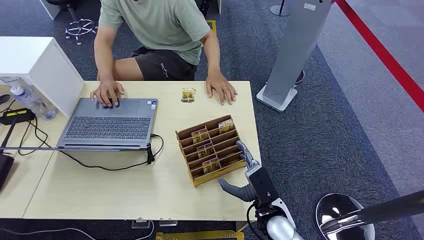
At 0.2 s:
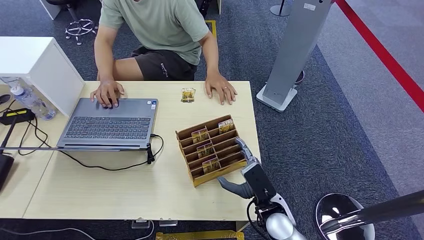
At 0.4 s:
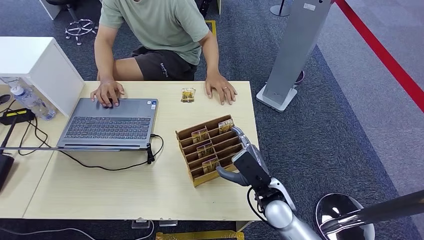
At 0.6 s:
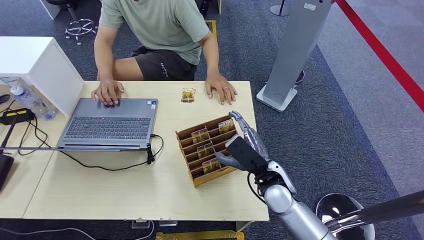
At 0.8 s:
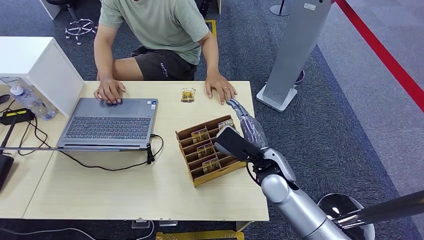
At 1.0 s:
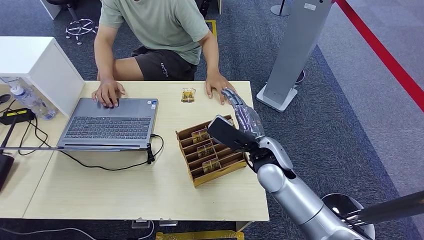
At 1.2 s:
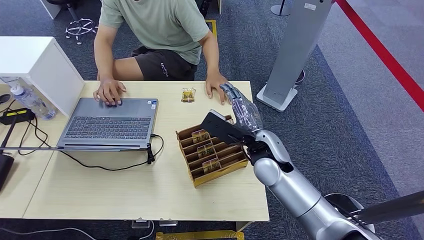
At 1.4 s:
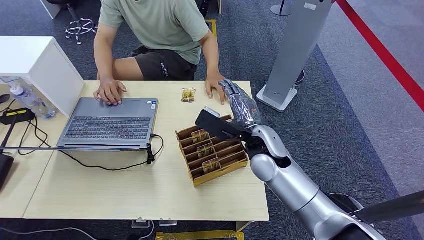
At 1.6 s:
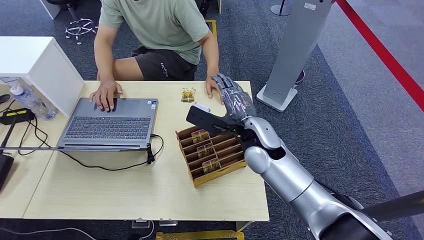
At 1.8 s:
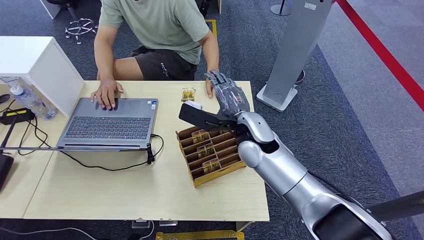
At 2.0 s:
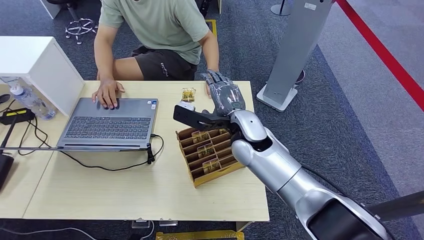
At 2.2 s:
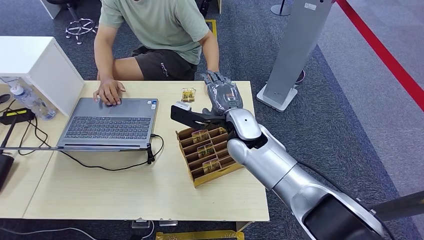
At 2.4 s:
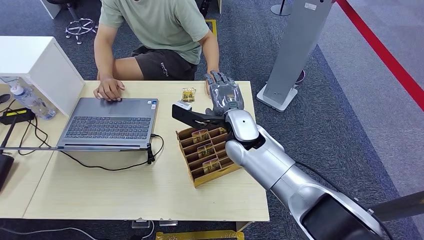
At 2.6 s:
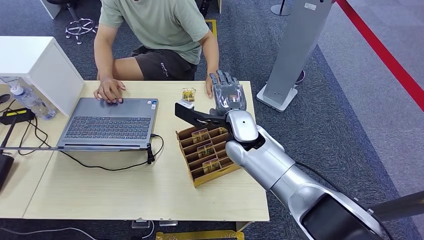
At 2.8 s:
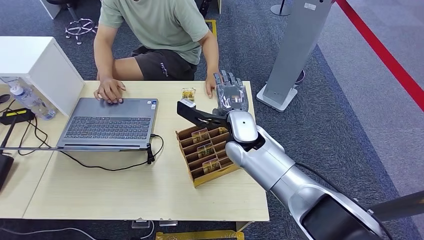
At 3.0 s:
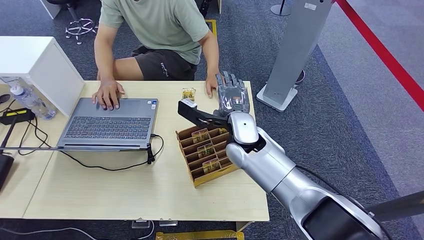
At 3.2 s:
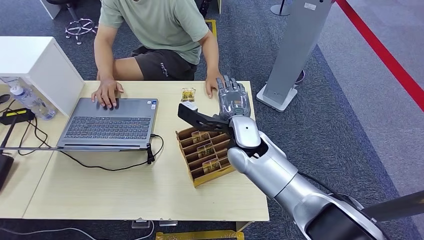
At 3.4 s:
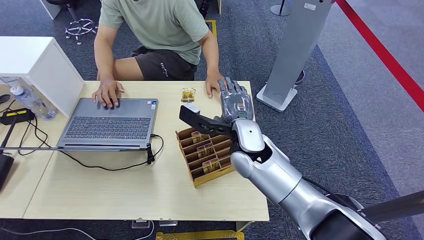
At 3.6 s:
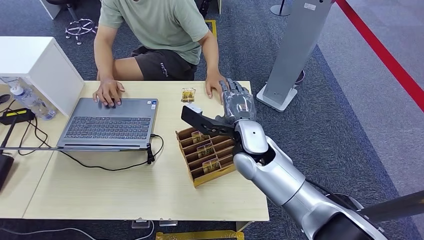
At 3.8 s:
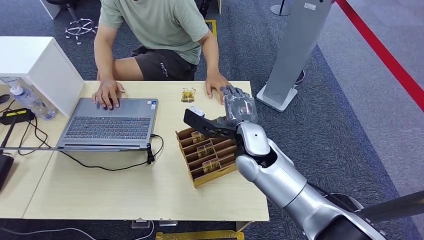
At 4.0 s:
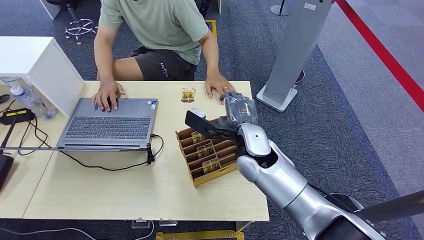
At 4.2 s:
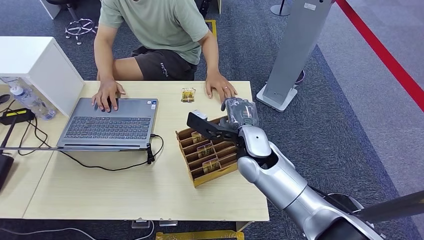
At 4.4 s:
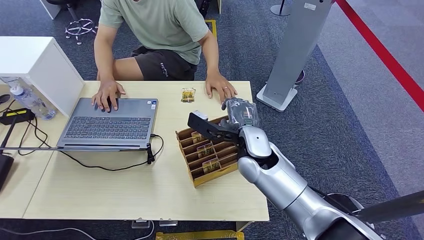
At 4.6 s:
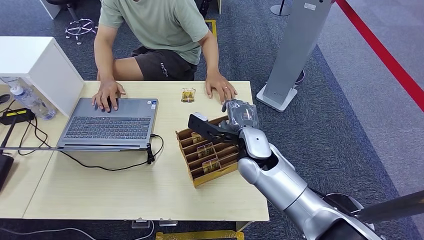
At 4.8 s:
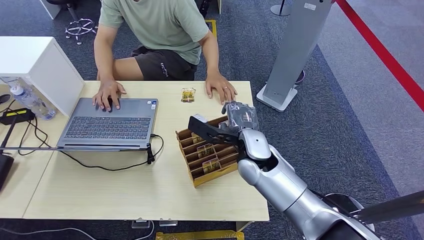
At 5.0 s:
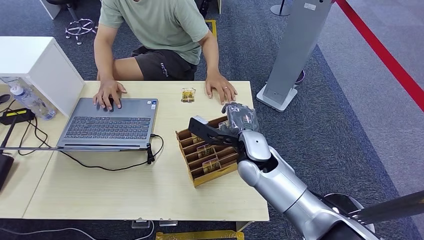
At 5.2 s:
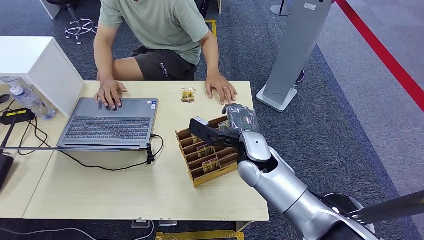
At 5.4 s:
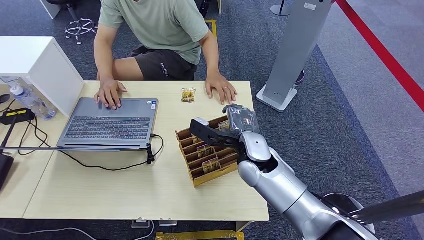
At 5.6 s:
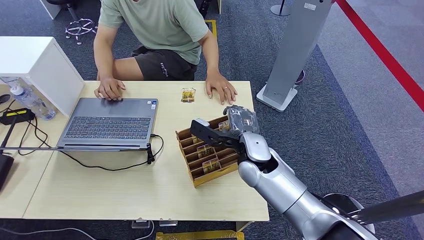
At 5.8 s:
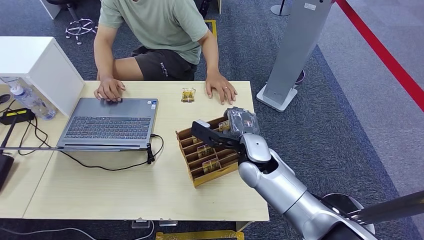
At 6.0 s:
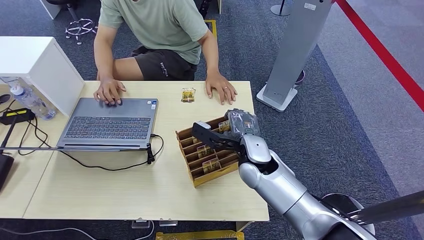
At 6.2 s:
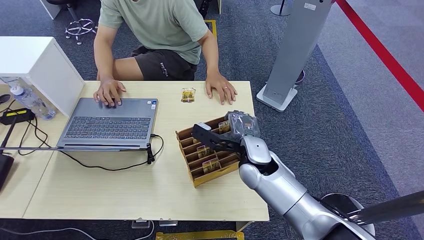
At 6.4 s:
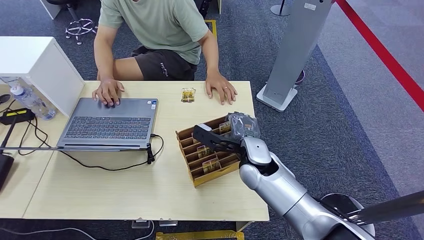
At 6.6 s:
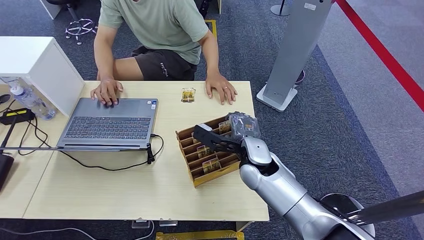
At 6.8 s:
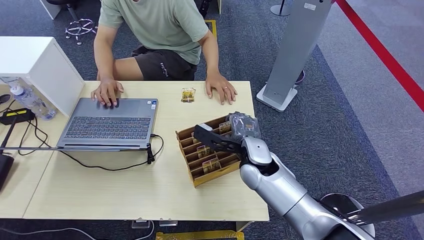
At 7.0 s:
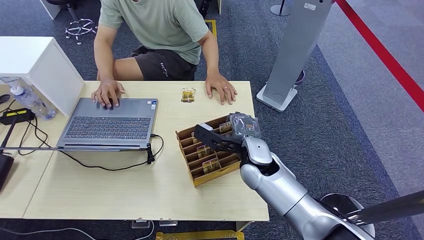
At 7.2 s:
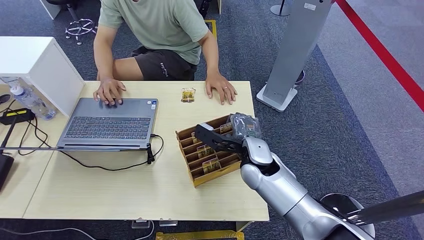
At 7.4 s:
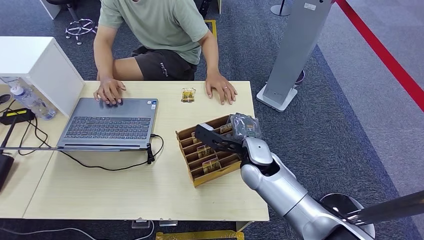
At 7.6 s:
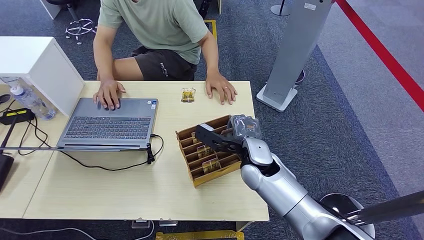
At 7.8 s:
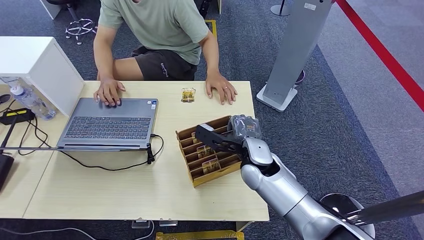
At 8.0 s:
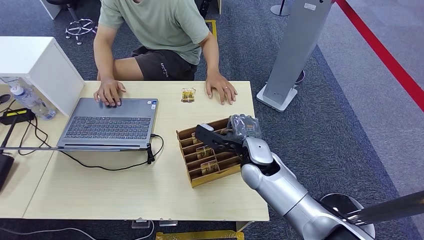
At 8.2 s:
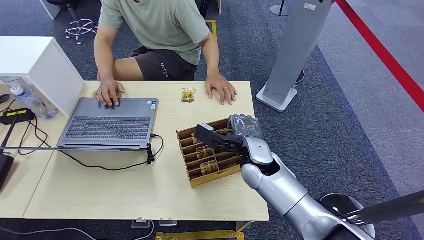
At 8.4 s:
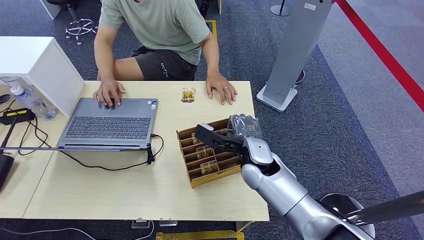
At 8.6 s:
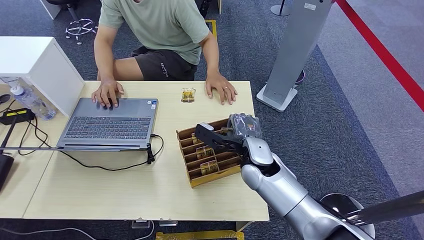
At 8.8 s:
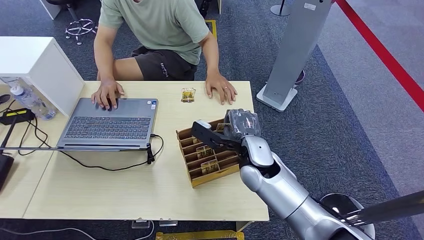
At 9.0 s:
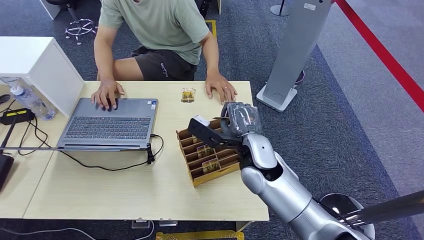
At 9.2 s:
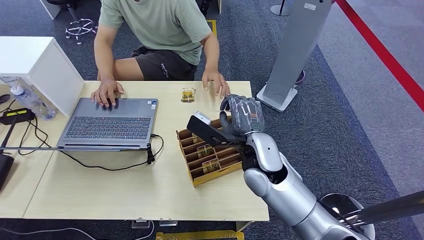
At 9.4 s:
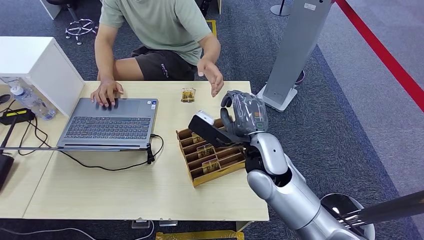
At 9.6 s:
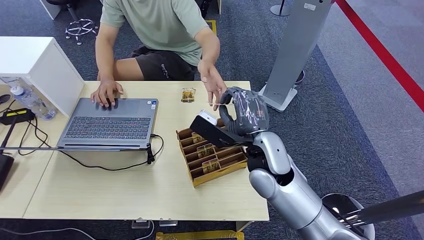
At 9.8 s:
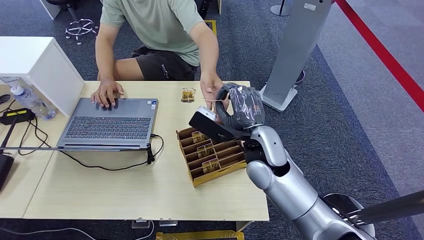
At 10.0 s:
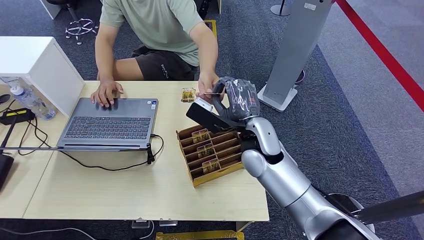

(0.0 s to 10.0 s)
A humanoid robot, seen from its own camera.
Step, 0.0 s - 9.2 s: Pick up the key card from the card box.
1.4 s - 2.8 s: The right hand heads to the left, covering about 5 cm.
2.8 s - 4.2 s: The hands stay close to where they were, moving slightly.
4.2 s - 7.2 s: The hands move only a little.
7.2 s - 8.6 s: The two hands keep their place.
8.6 s - 10.0 s: The right hand heads upward, covering approximately 5 cm.

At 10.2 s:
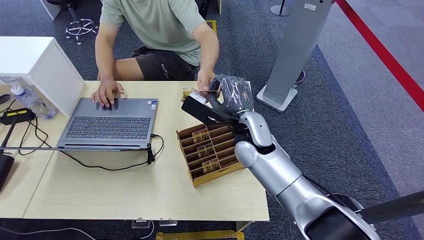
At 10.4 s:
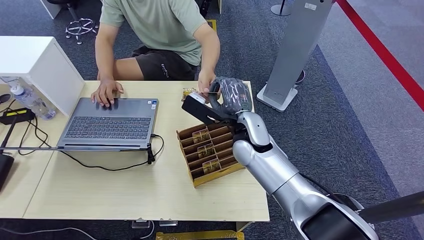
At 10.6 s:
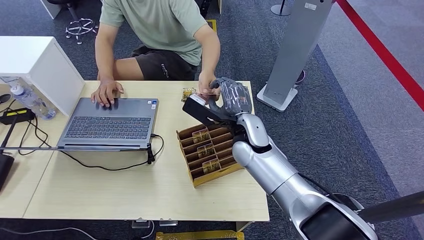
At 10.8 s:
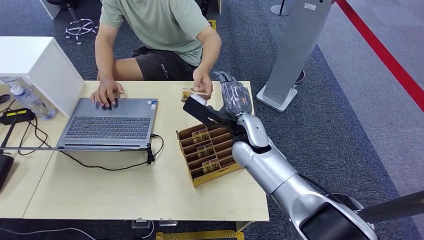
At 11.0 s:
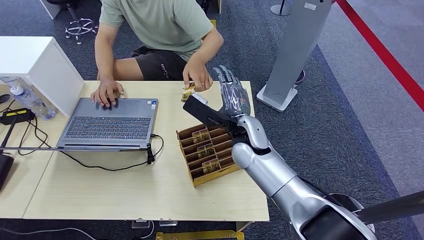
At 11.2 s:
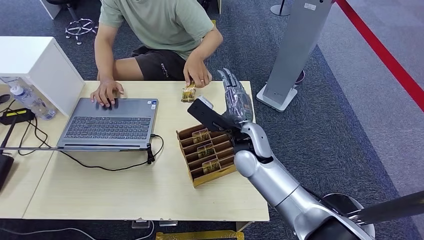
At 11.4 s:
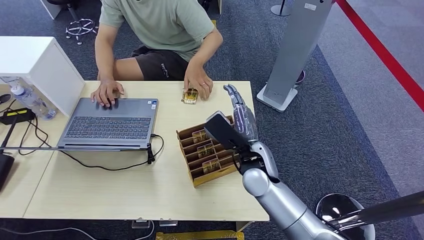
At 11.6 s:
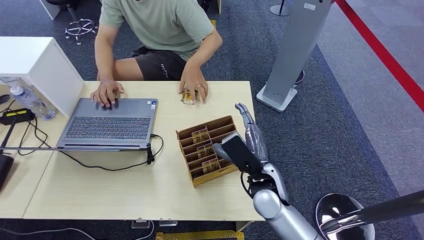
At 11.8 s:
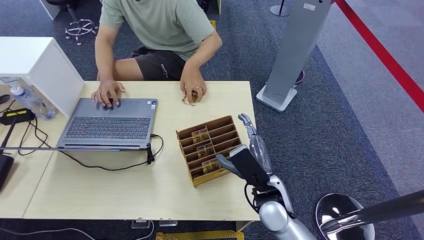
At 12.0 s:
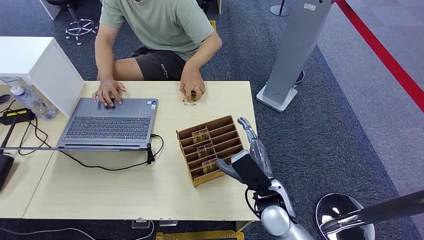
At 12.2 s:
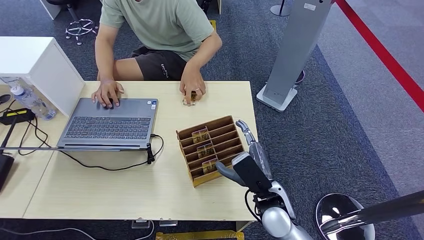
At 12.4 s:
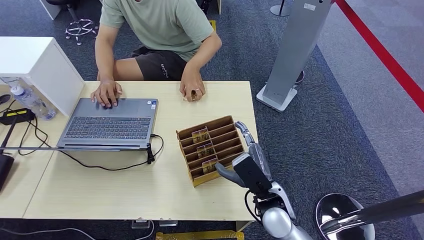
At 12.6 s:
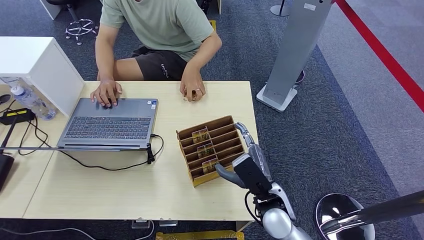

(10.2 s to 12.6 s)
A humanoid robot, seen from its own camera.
Step, 10.2 s - 12.6 s: Hand the key card to the target.
10.2 s - 11.4 s: The right hand travels backward and downward by about 5 cm.
11.4 s - 12.6 s: The right hand moves backward and downward, roughly 10 cm.
